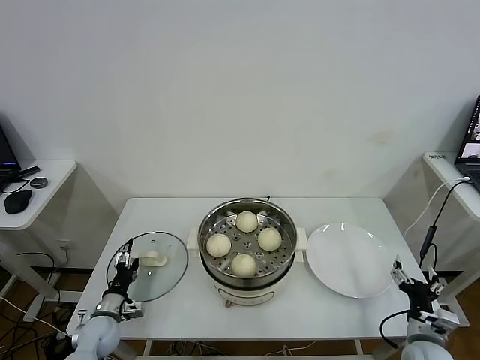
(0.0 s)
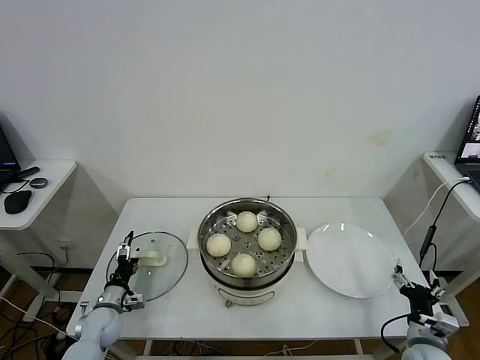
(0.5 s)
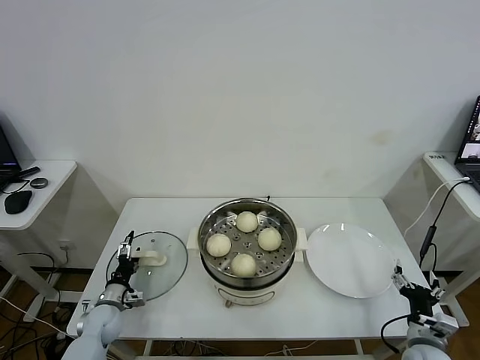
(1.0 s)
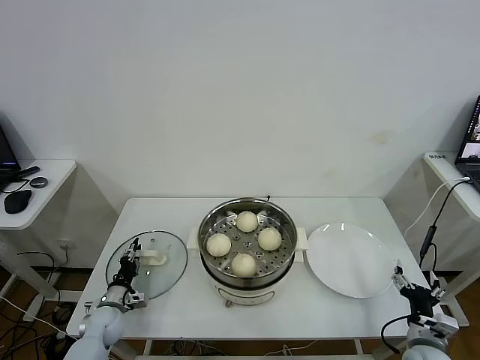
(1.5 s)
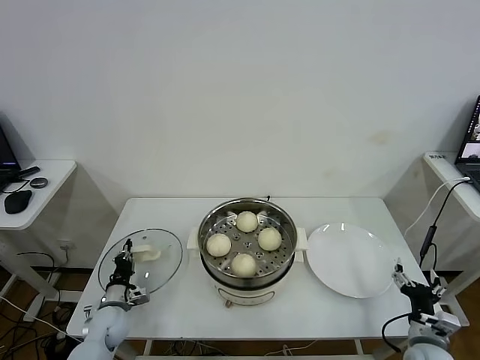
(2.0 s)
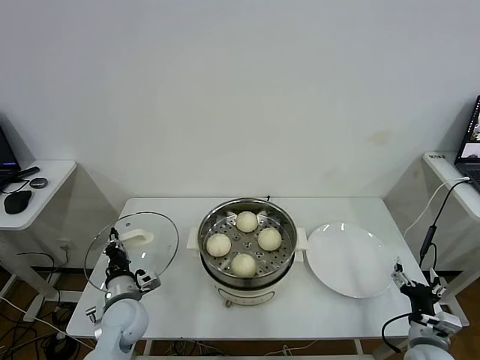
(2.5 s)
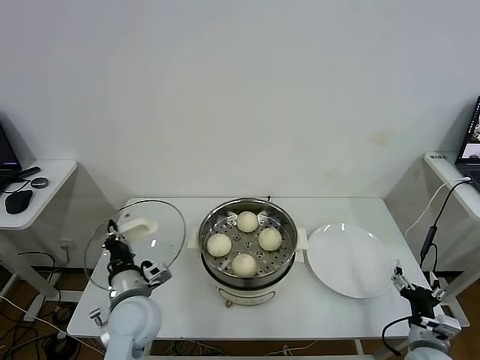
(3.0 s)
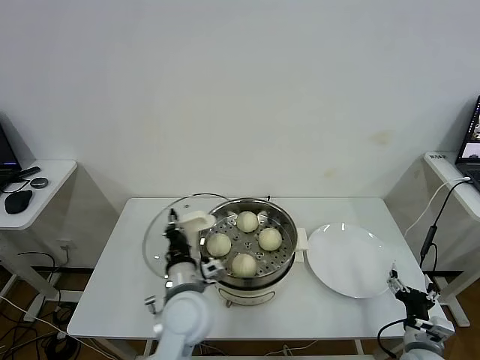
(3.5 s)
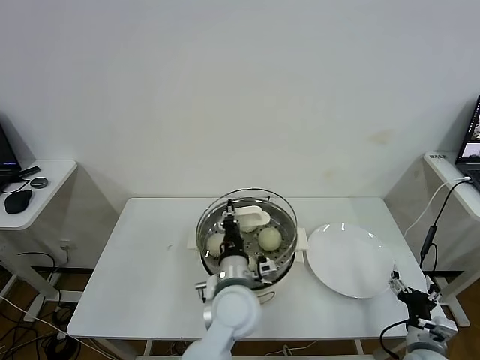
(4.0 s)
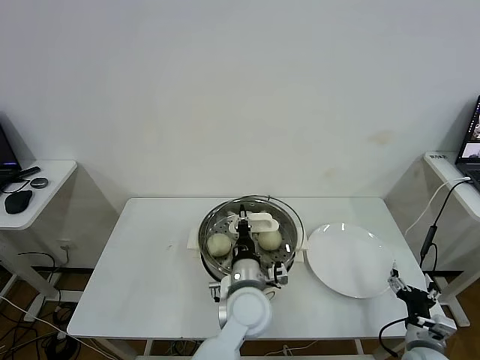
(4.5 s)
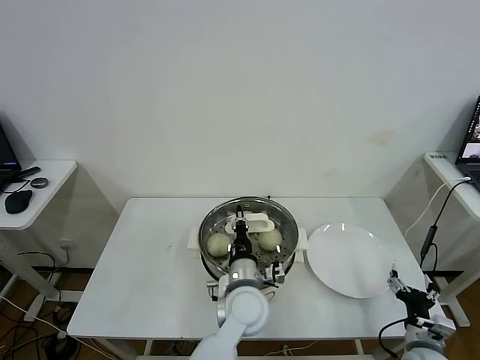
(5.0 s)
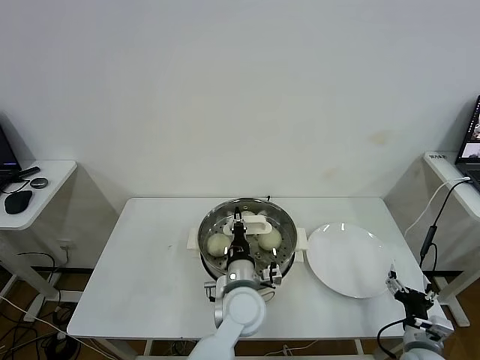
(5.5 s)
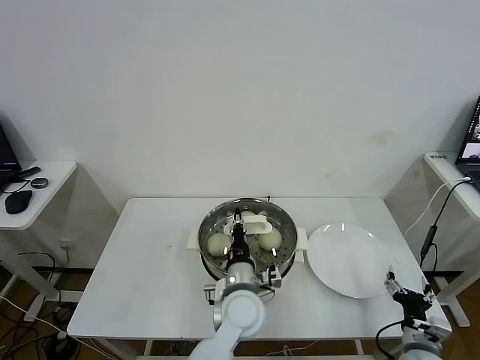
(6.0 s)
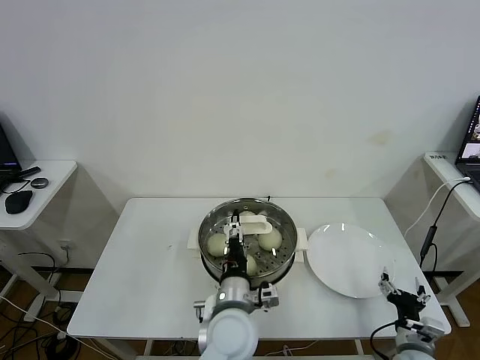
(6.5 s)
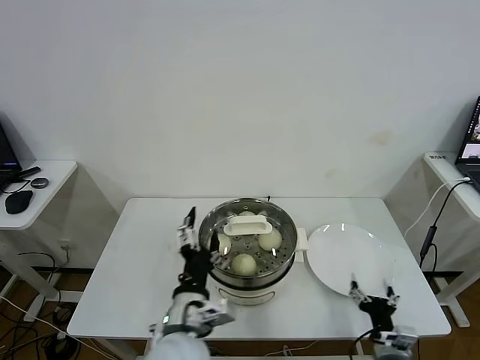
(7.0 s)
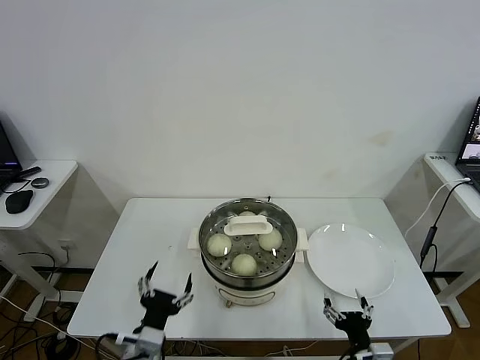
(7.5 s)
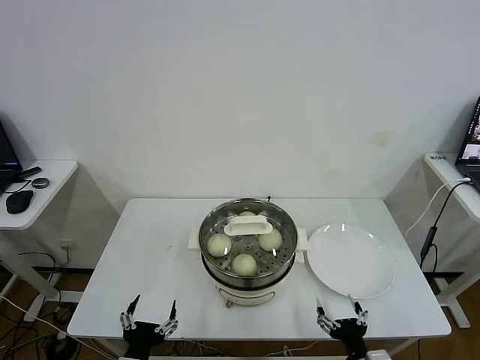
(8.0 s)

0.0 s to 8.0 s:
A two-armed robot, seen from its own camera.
Task of the whole recording: take steamed baozi put them in steamer.
Step, 2.0 to 6.5 s: Place the pot lid on the steamer with left gripper.
0.0 to 2.0 s: The left gripper closes.
2.0 to 4.0 s: The left gripper travels to the right and upward by about 40 cm.
4.0 to 6.0 s: The left gripper changes place by roughly 5 cm.
6.0 to 8.0 s: The right gripper travels to the left and backward by some 15 cm; the left gripper moves to the left and backward, roughly 30 cm, and opens.

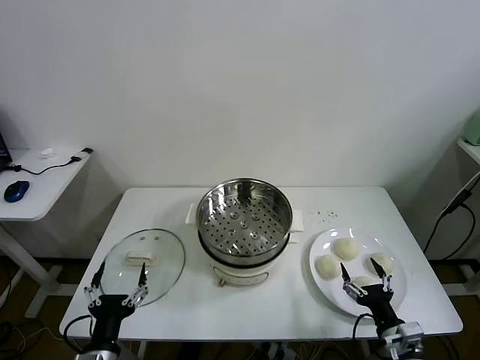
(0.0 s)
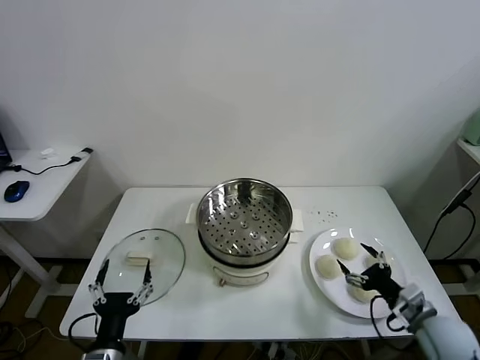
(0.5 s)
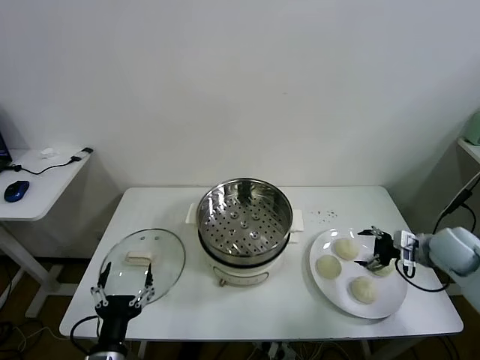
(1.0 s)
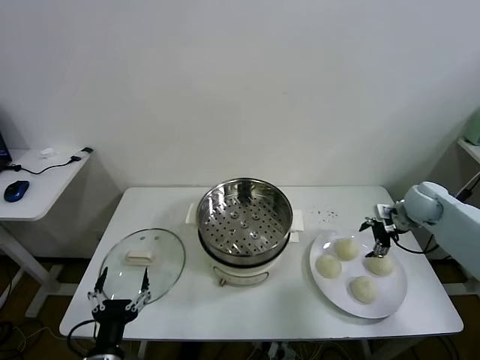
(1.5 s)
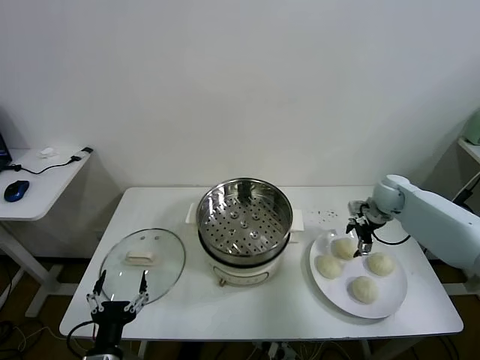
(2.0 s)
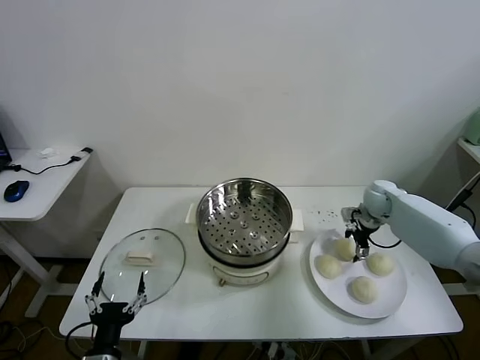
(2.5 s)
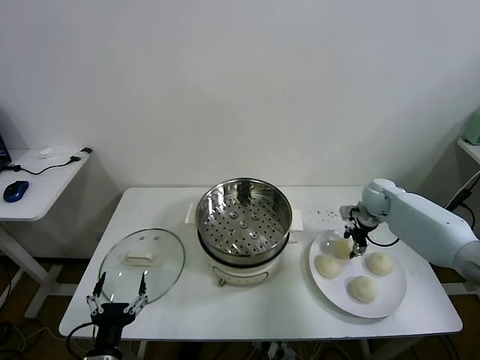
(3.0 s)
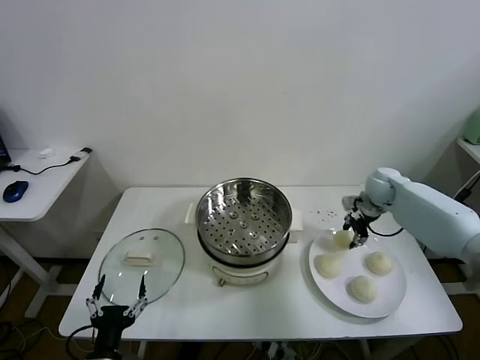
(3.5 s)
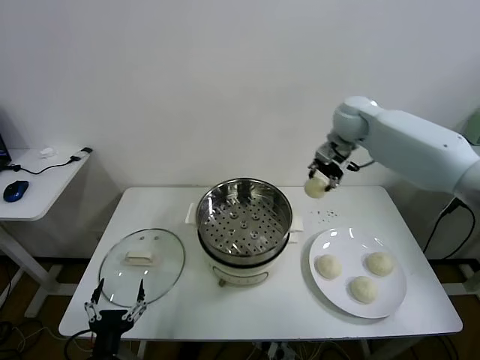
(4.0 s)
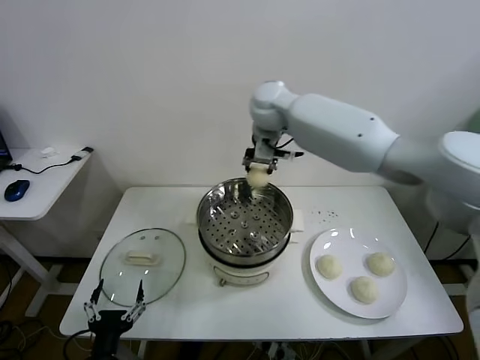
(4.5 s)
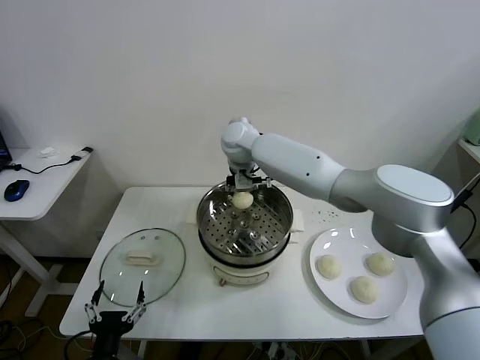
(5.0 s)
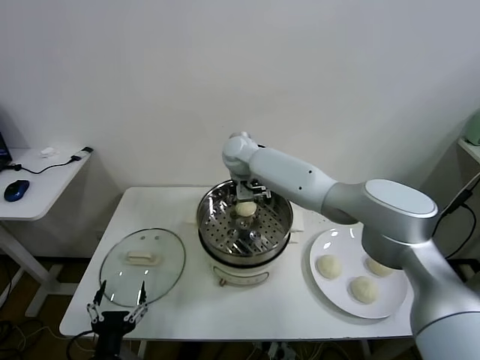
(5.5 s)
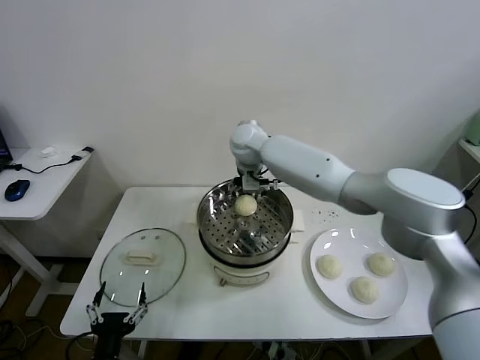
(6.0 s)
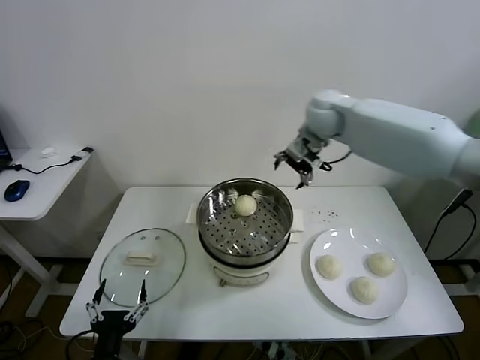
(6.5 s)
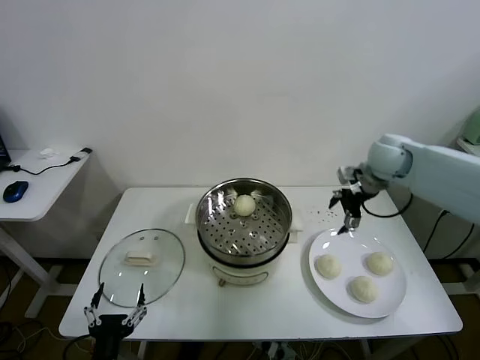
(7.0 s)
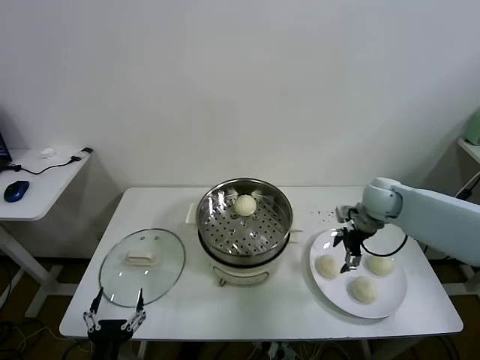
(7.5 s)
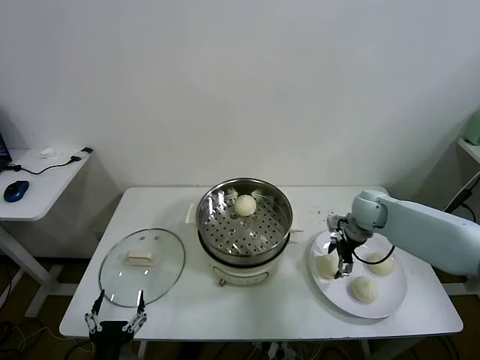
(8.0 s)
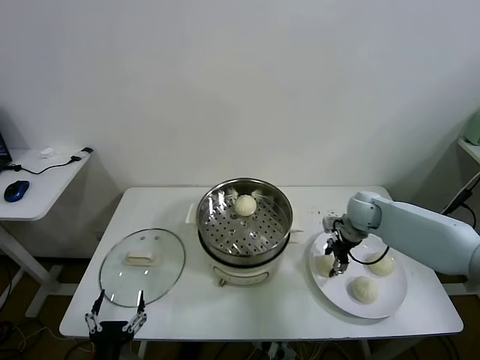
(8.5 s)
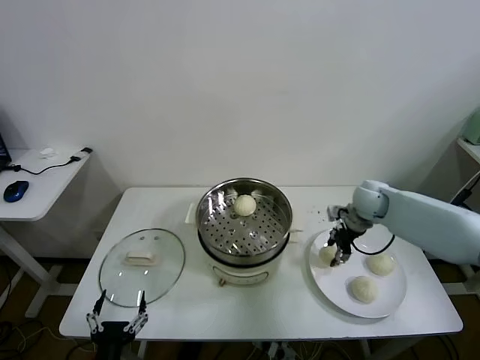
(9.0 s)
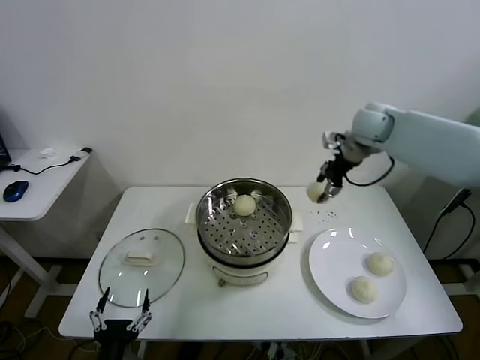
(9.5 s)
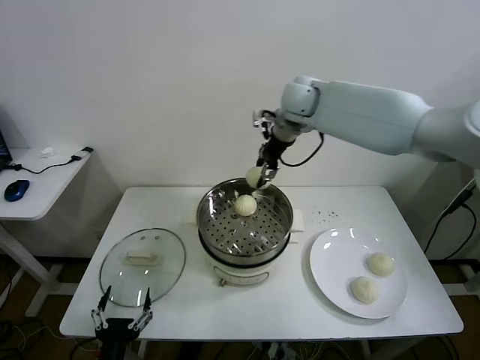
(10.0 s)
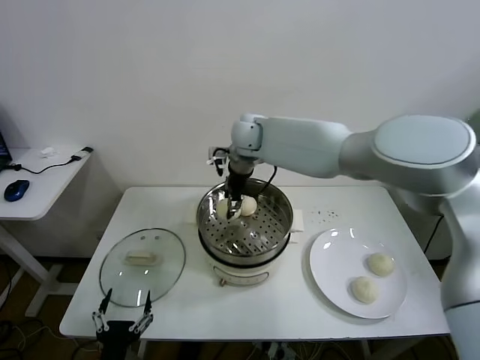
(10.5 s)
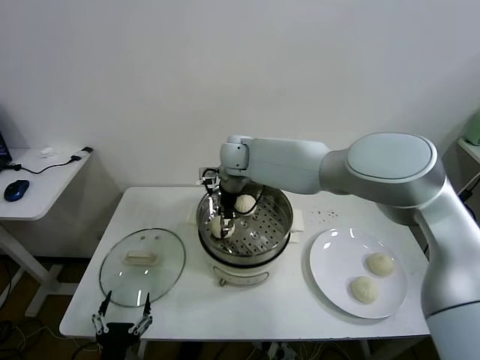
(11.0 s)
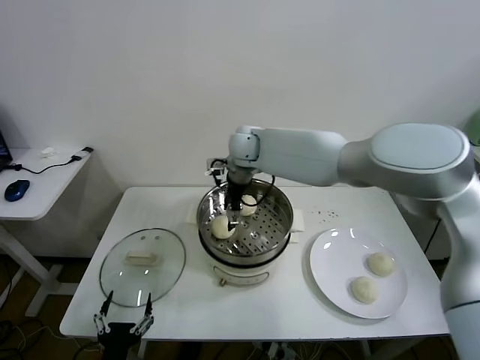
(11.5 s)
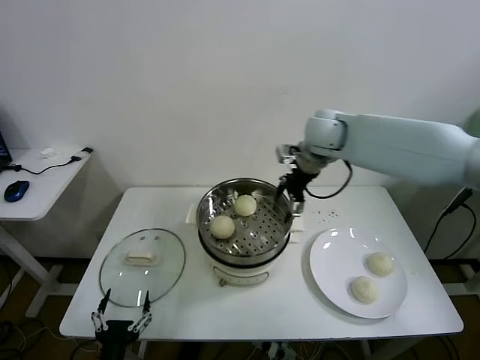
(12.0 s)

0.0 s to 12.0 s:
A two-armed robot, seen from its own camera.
Task of the whole recording: take steamed baozi put them in steamer.
Step, 0.0 to 2.5 s: Grasp the baozi in the plate with right gripper.
Step, 3.0 to 6.0 s: Place the baozi on the steamer with right gripper.
Step, 6.5 to 8.5 s: Grasp the baozi in the plate with right gripper.
Step, 9.0 to 11.0 s: Place the baozi on the steamer with right gripper.
2.0 to 4.0 s: The right gripper moves upward and to the left, roughly 30 cm, and closes up.
4.0 to 6.0 s: The right gripper heads to the left, covering approximately 20 cm, and opens its fingers.
6.0 to 8.0 s: The right gripper goes roughly 35 cm to the right and downward.
8.0 to 10.0 s: The right gripper shifts approximately 35 cm upward and to the left, and closes its fingers.
10.0 to 12.0 s: The right gripper moves to the right and backward, roughly 10 cm, and opens up.

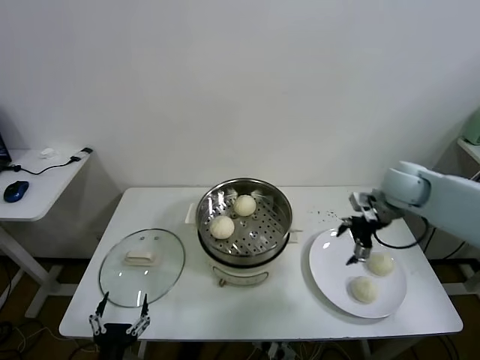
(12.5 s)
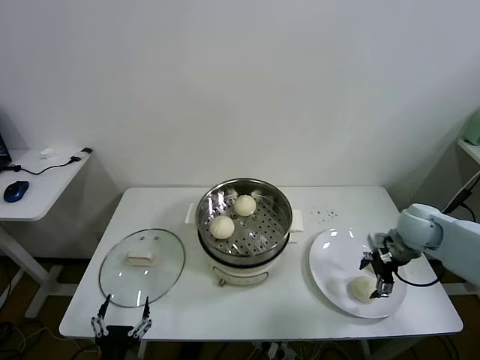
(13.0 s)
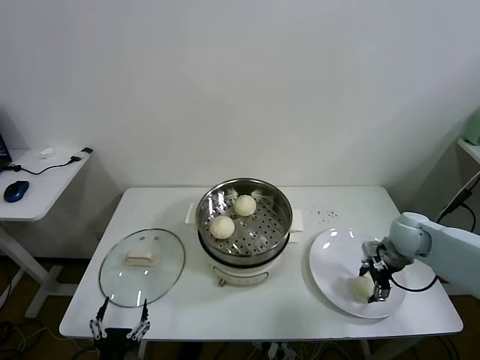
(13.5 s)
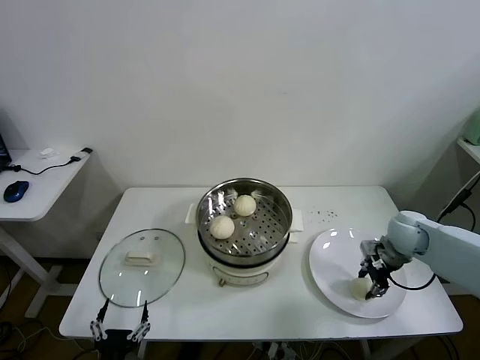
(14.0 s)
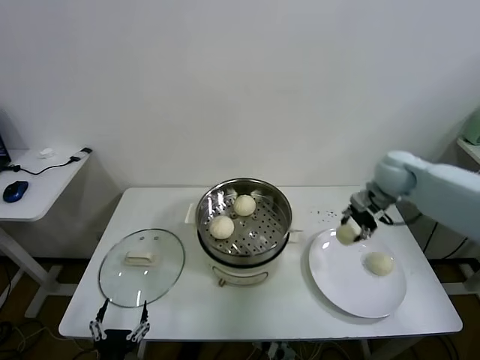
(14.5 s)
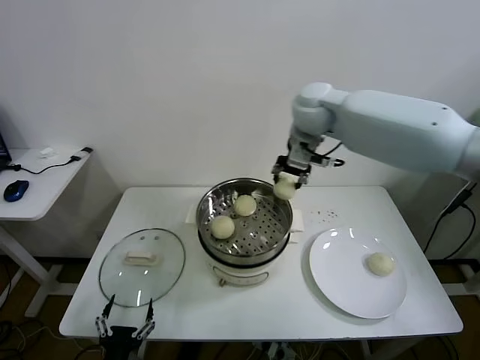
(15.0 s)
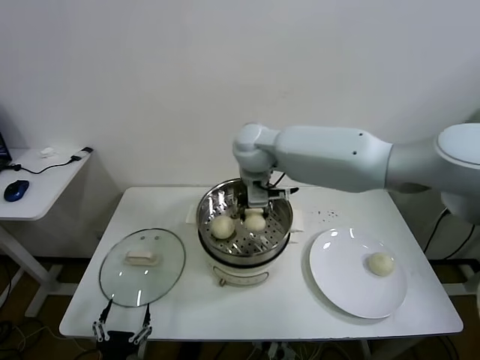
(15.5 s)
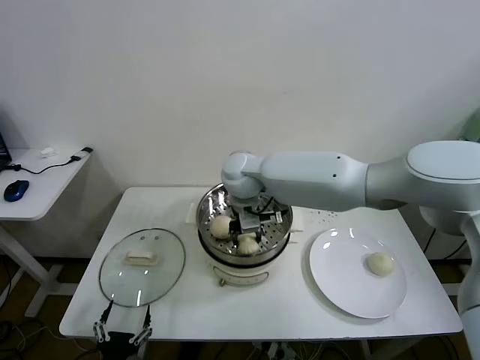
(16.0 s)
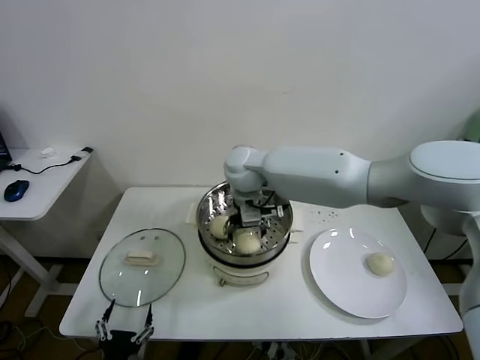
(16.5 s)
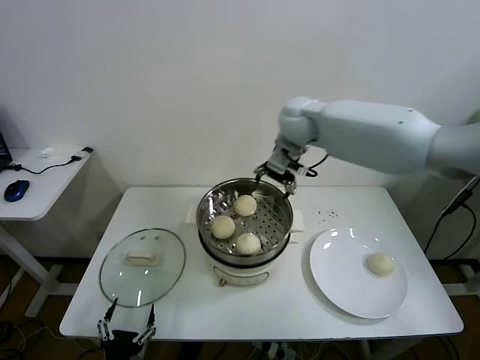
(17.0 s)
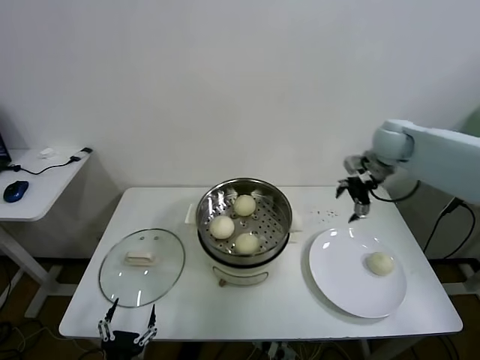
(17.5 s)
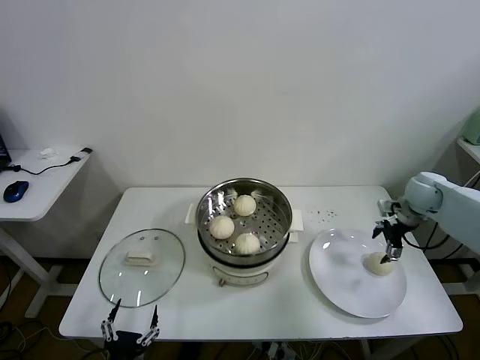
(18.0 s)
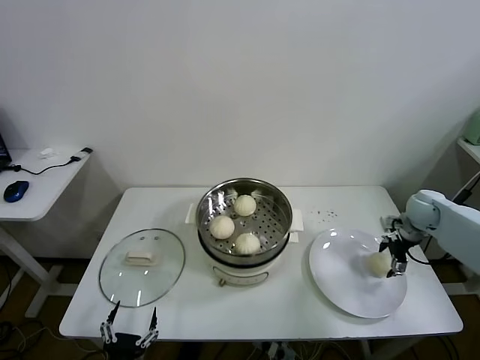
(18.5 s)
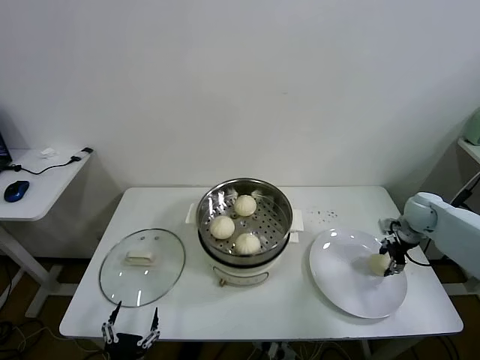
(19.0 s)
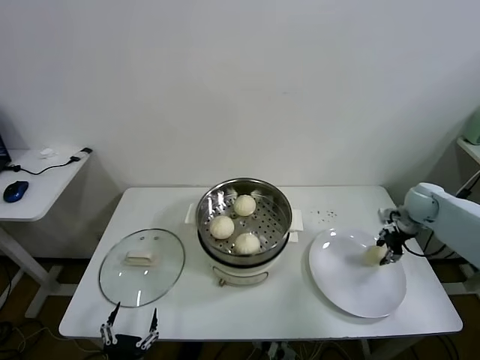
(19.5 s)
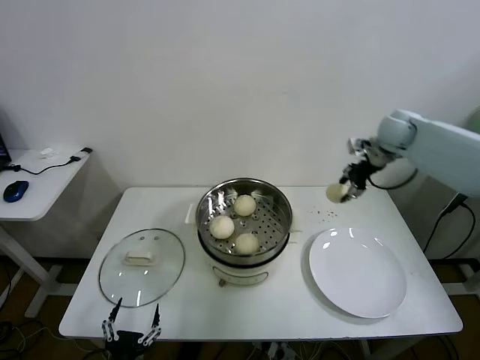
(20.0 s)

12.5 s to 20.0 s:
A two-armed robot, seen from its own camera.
Task of the whole recording: take steamed baozi put them in steamer.
Step, 14.0 to 16.5 s: Place the baozi on the steamer with right gripper.
Step, 17.0 to 19.0 s: Grasp the baozi in the plate with right gripper.
12.5 to 14.5 s: The right gripper travels forward by roughly 5 cm, moves approximately 10 cm downward and comes back, and closes.
14.5 to 16.5 s: The right gripper heads to the left, covering roughly 35 cm, and opens.
16.5 to 18.0 s: The right gripper is displaced to the right by some 40 cm.
18.0 to 20.0 s: The right gripper is displaced upward, to the left and forward by some 20 cm, and closes.
